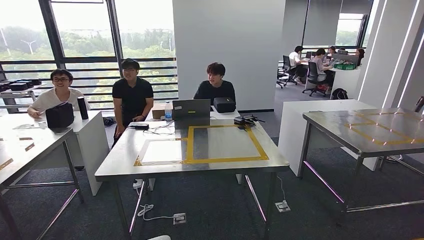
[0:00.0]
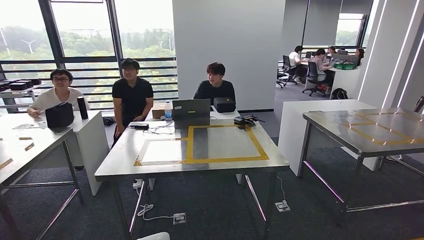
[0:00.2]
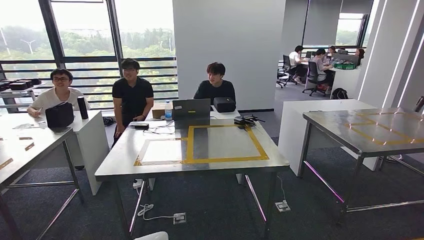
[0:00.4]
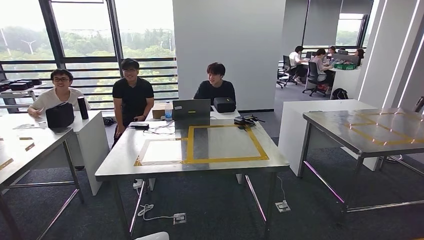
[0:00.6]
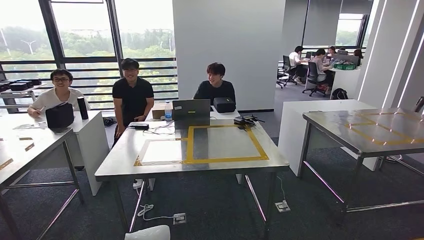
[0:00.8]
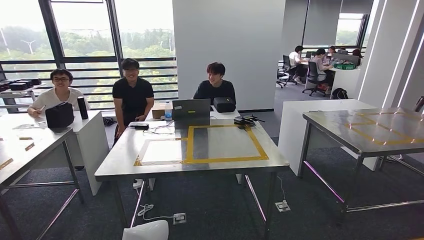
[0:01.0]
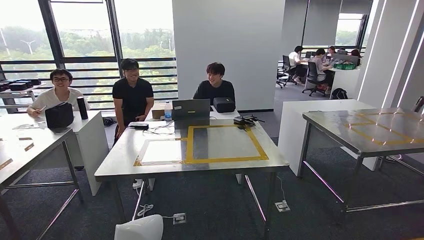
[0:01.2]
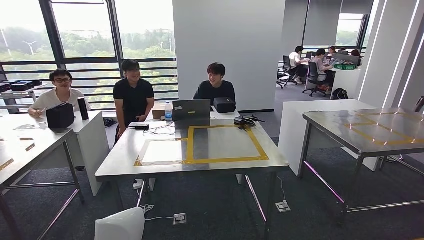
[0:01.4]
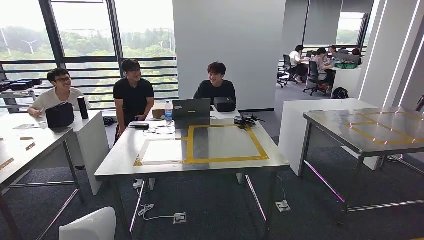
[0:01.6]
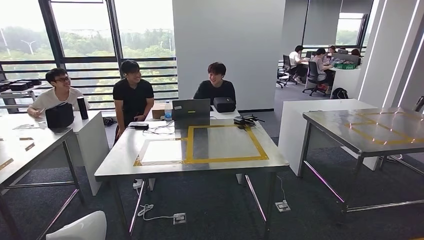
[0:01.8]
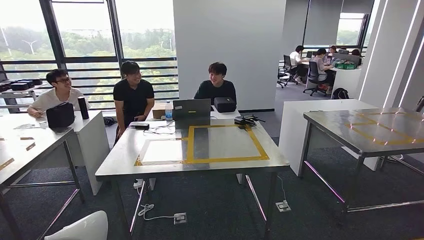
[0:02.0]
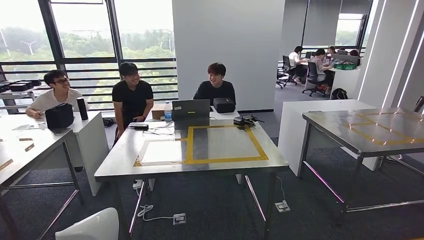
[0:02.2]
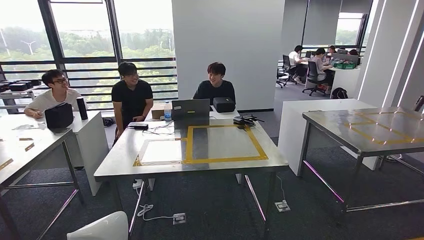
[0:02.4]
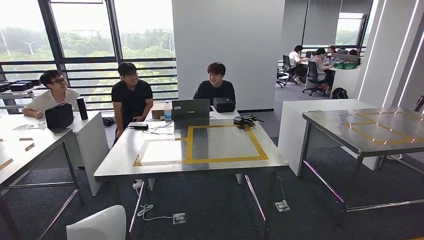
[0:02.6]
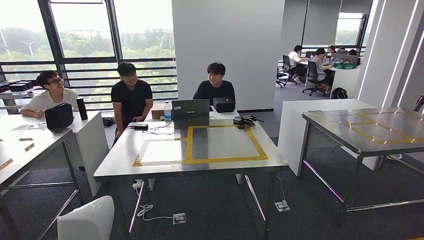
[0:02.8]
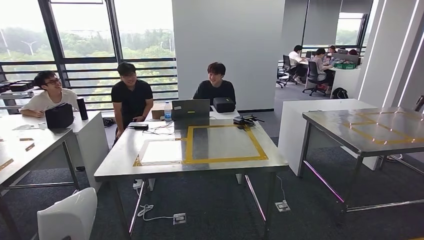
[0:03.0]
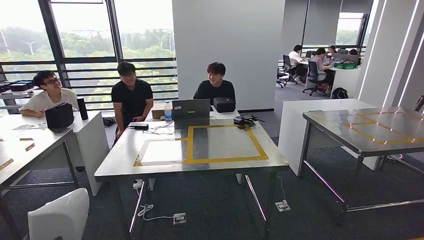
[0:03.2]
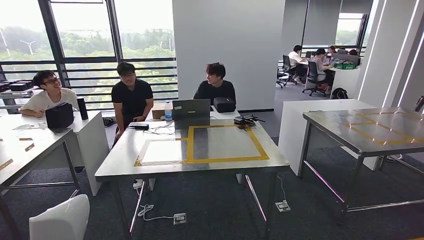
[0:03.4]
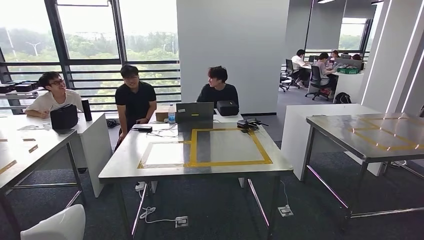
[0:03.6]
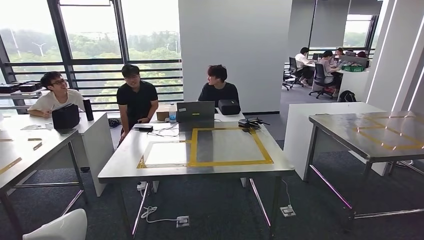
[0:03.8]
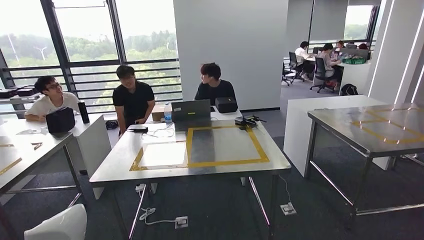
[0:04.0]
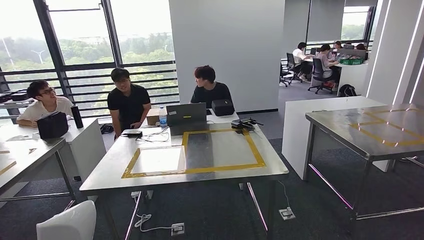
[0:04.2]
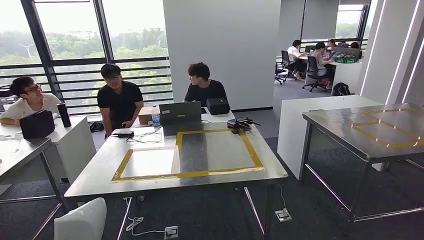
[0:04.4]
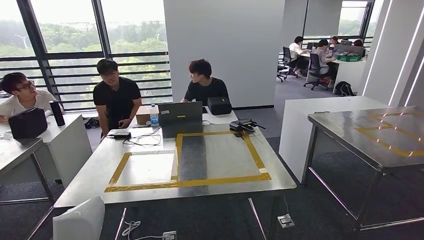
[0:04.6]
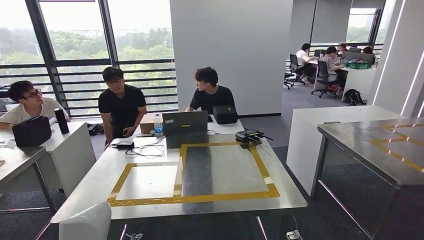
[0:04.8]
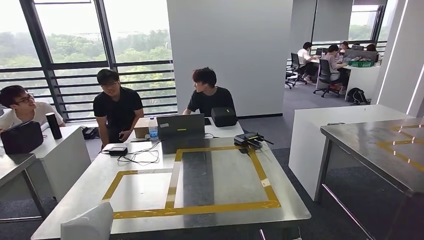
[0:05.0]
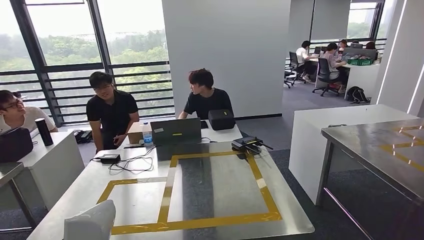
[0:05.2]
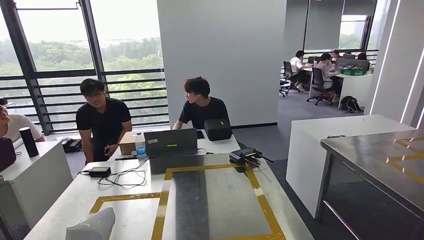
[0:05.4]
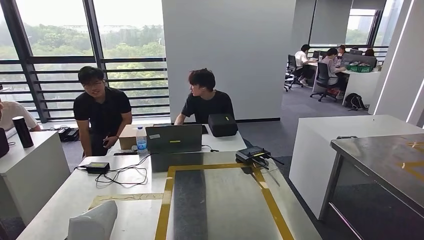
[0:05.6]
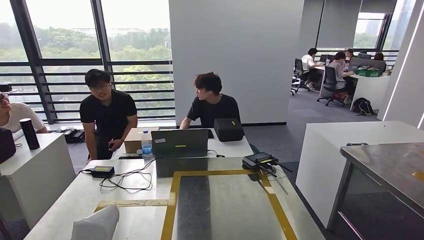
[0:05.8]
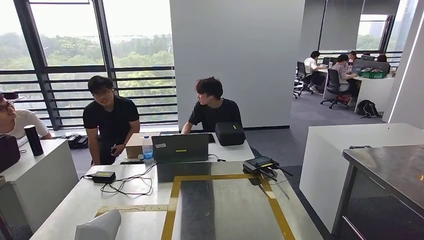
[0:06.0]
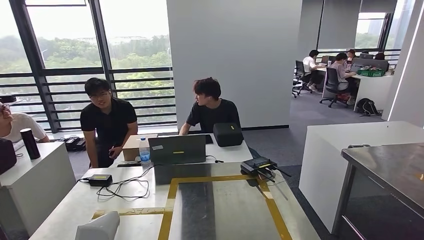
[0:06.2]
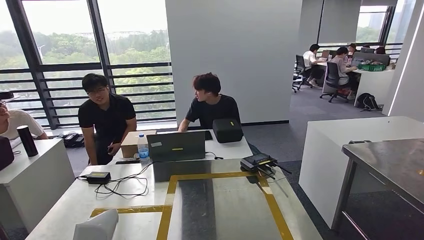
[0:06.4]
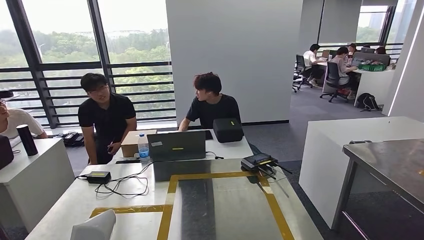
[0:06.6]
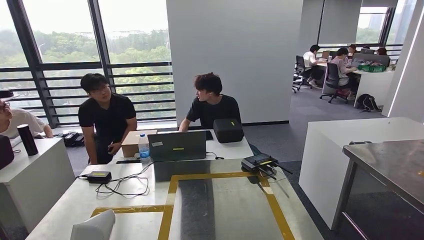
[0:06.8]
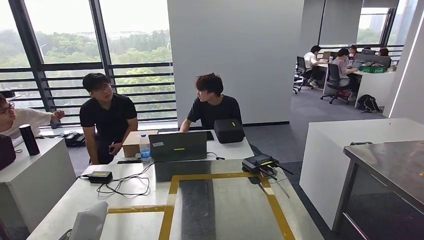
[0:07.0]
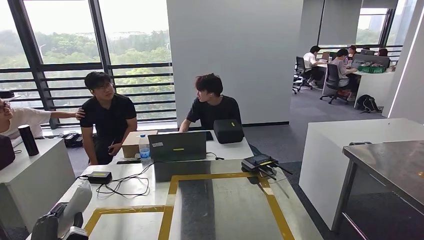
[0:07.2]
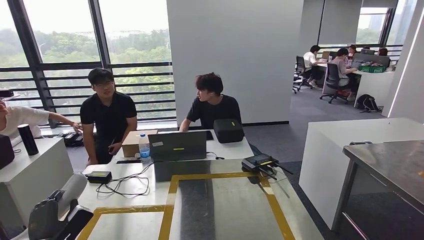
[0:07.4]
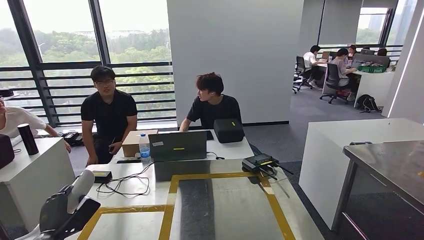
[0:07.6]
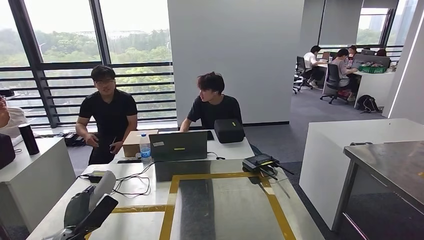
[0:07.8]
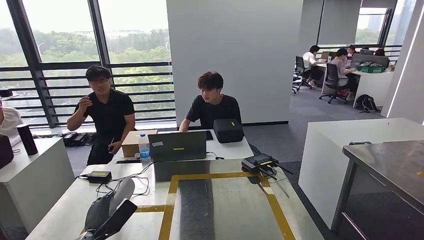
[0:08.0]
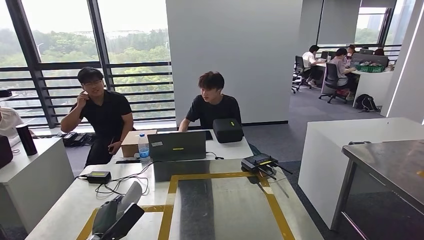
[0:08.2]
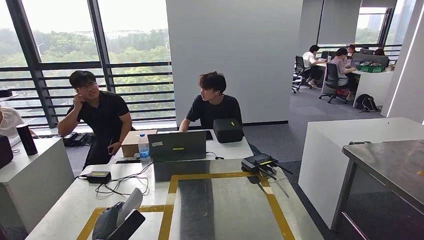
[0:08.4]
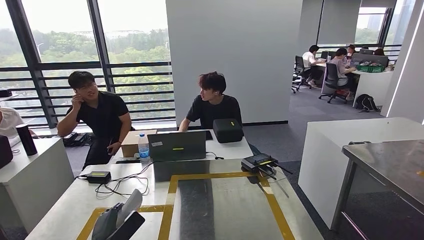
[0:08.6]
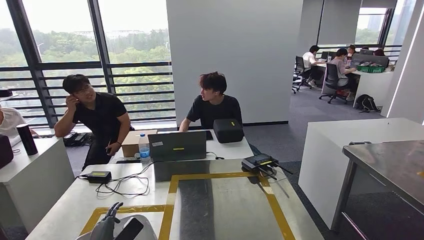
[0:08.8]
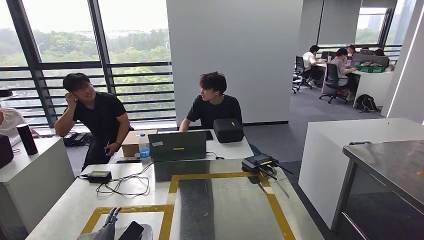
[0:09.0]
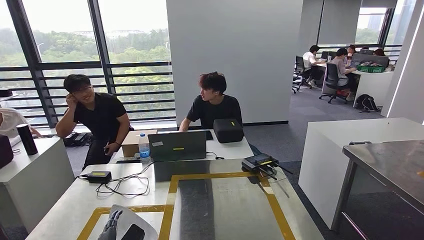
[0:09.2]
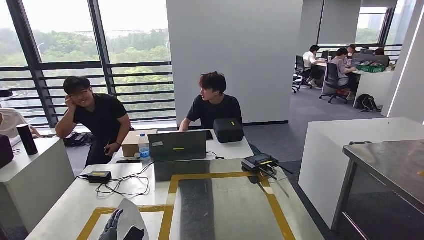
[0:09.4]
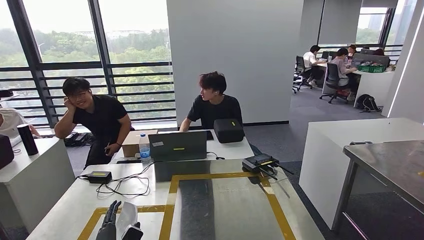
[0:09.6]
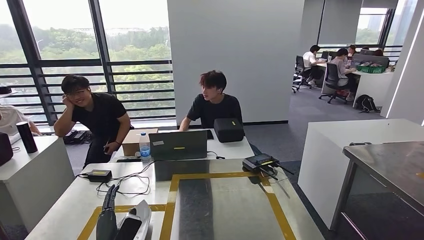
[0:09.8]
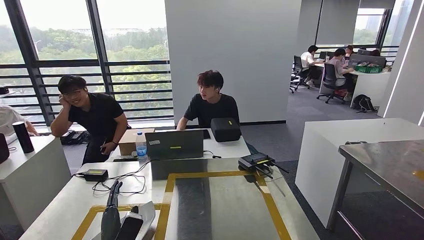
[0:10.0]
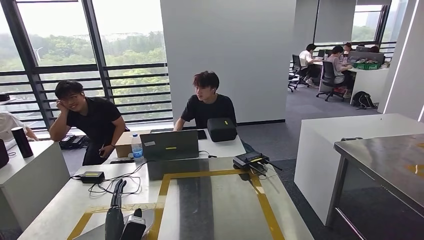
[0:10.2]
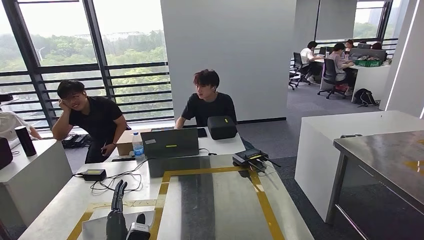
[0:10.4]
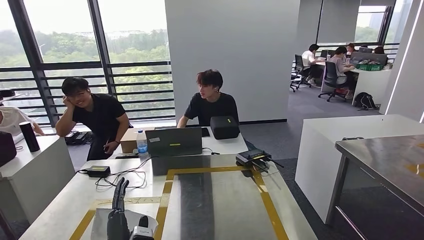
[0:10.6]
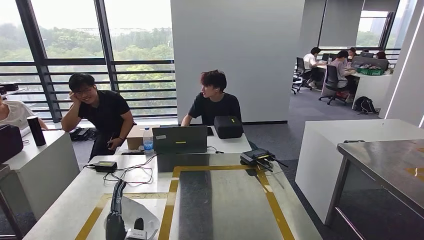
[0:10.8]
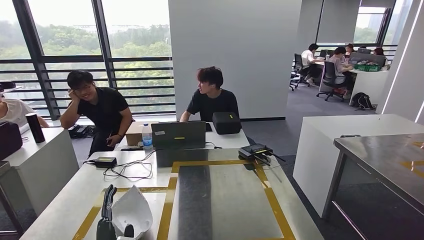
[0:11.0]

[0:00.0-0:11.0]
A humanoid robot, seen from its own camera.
Step, 0:00.0 to 0:09.6: Insert the small component into the corresponding slot on the workbench.
0:00.0 to 0:01.6: The right hand shifts roughly 5 cm forward. Meanwhile the left hand shifts some 10 cm to the left.
0:01.6 to 0:03.2: The left hand goes approximately 5 cm to the left.
0:07.8 to 0:09.4: The left hand is displaced to the right and downward by roughly 15 cm.

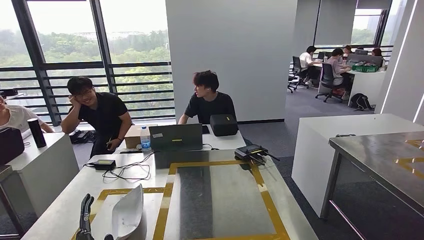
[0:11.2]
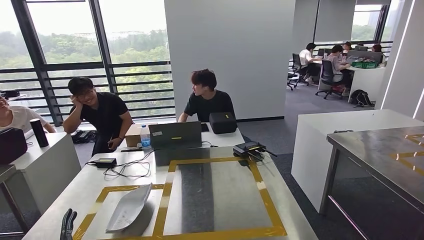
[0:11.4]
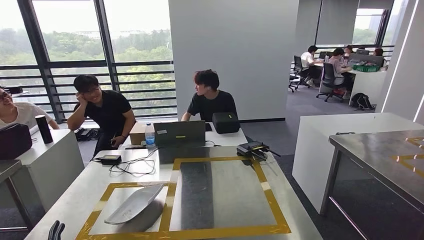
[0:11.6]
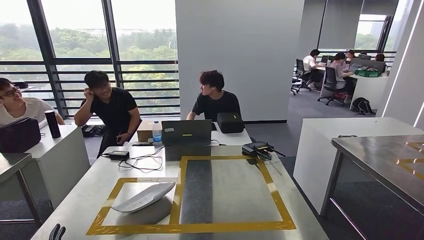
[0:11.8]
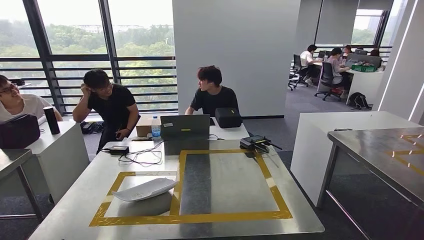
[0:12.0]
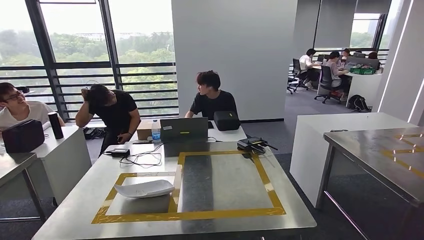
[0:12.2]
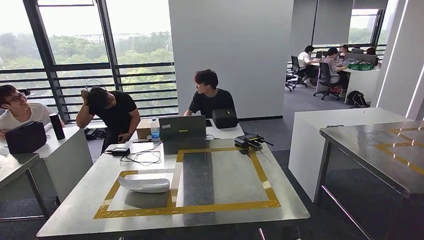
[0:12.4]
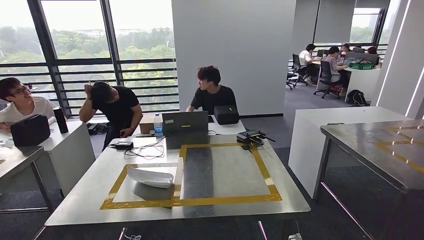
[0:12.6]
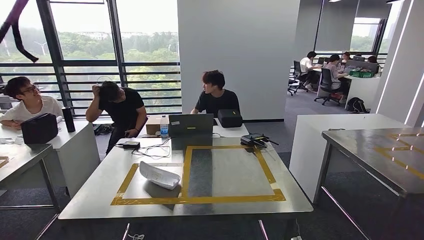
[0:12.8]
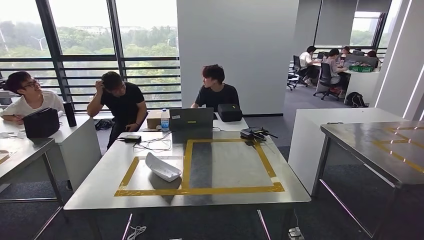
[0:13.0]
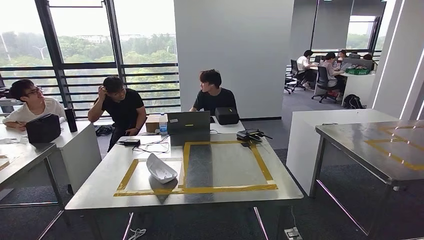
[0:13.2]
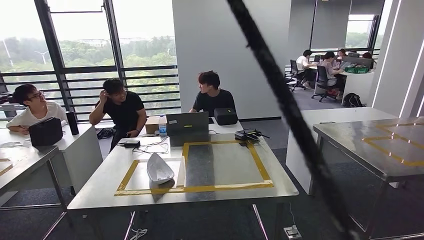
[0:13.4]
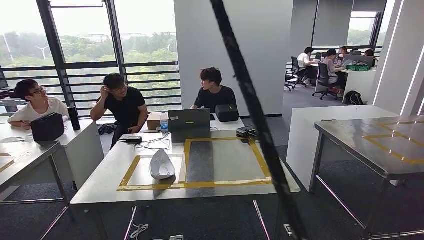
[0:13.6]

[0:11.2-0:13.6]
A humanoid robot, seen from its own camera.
Step, 0:11.2 to 0:13.6: Move to the initial position at the workbench.
